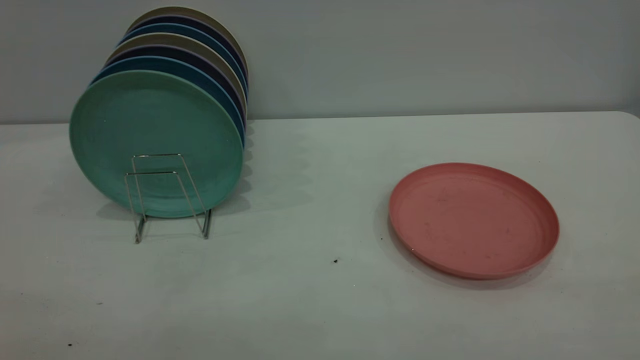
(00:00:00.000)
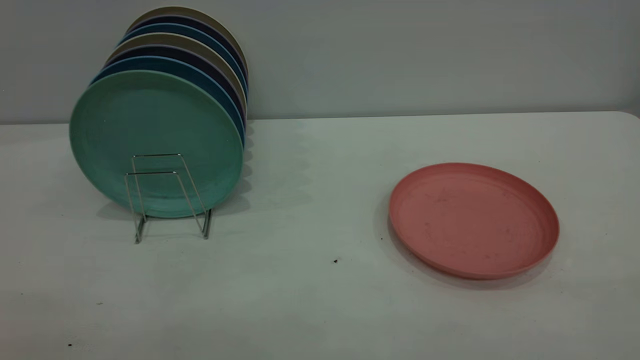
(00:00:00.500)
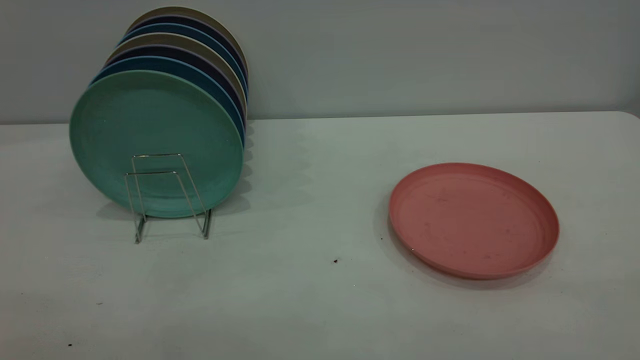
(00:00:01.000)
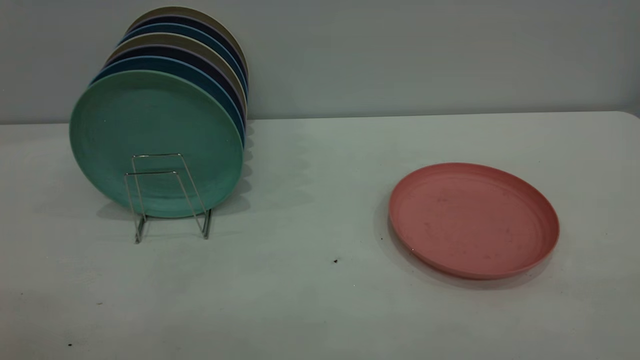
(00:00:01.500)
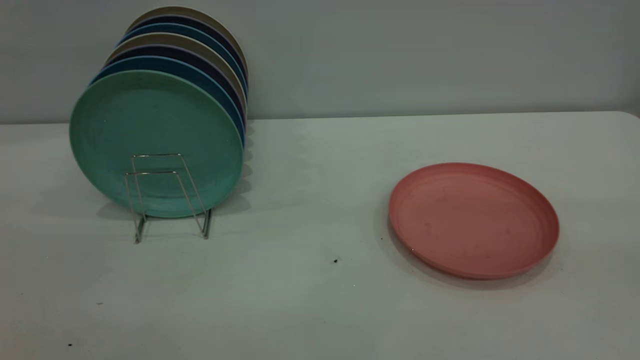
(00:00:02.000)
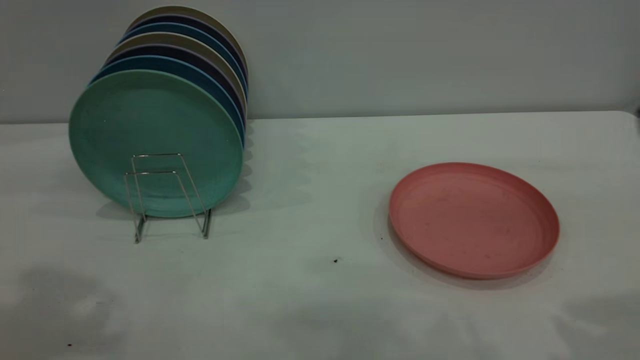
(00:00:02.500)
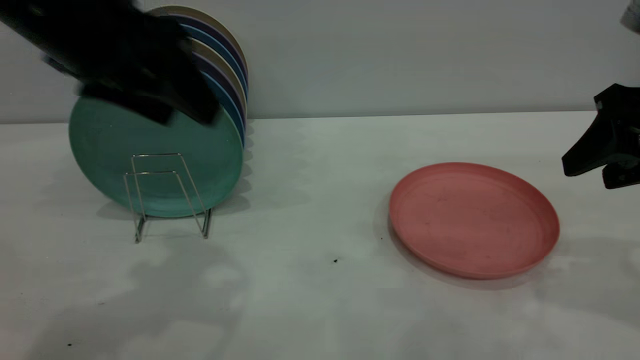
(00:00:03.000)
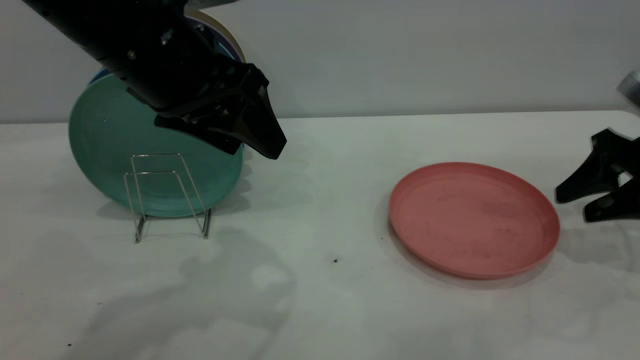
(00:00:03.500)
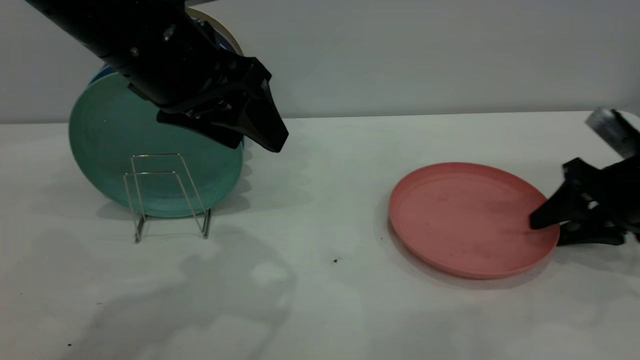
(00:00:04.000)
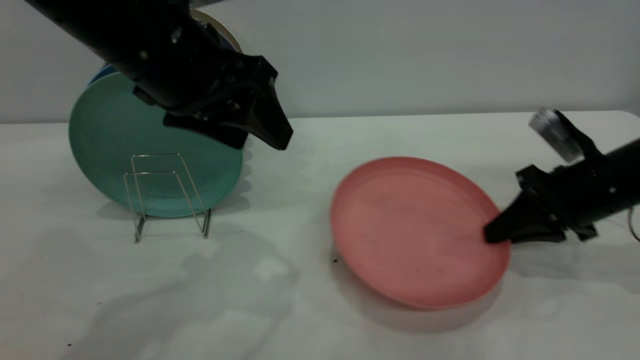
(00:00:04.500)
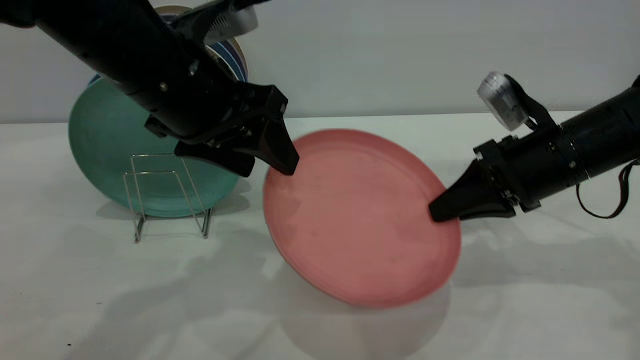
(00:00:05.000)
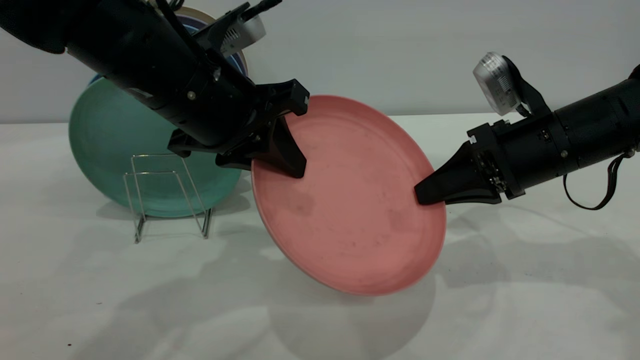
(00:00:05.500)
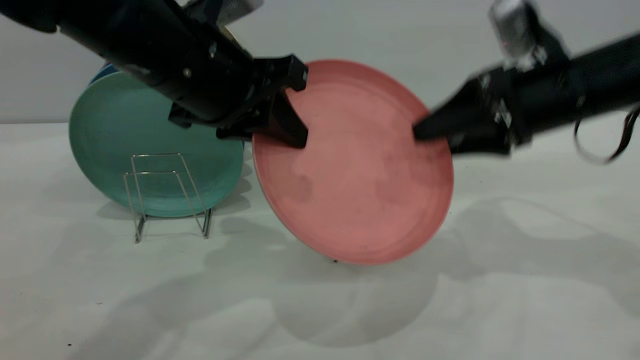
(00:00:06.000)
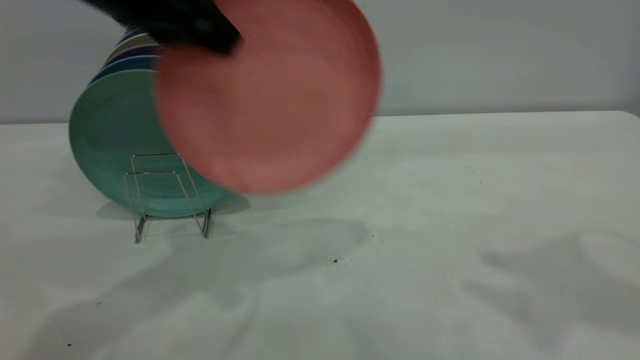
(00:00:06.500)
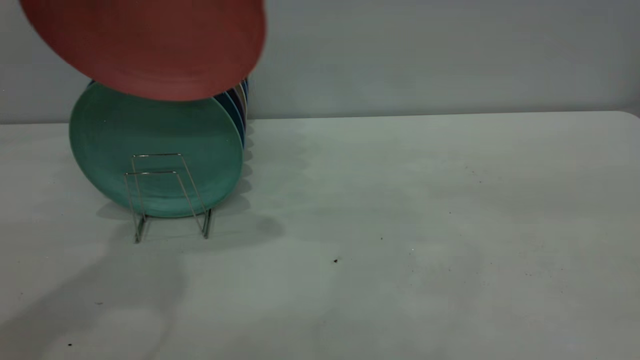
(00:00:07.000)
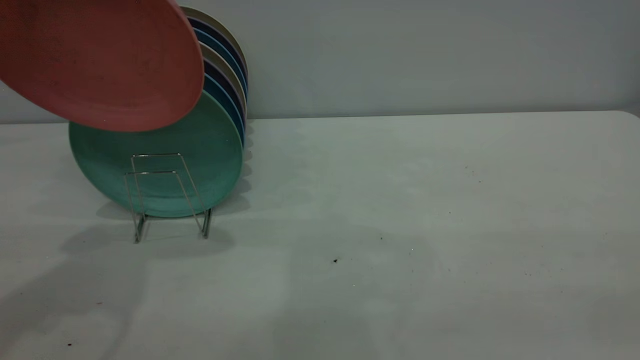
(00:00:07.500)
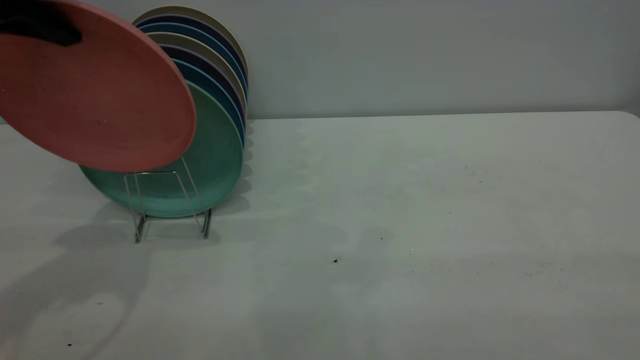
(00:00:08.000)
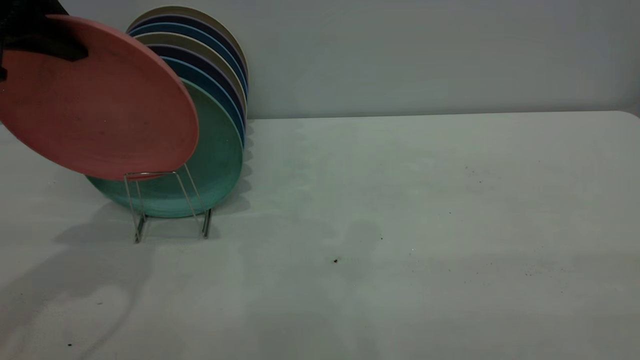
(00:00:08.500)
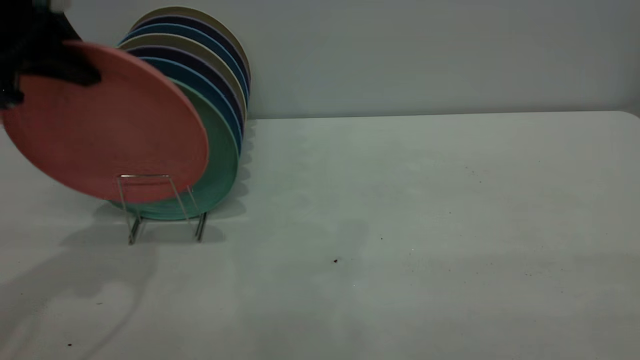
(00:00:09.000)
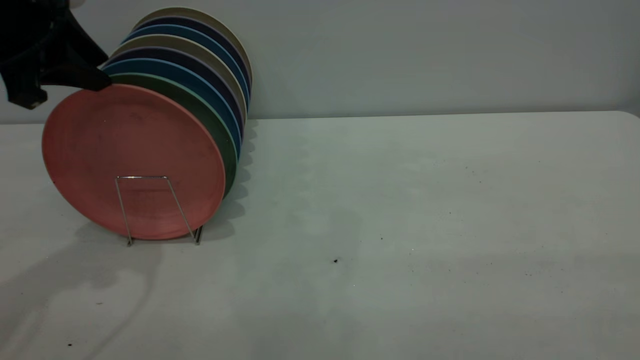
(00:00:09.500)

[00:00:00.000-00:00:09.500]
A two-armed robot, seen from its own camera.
Task of the whole recording: the right gripper grasp the pink plate, the right gripper pass the pink plate to the left gripper, and the left gripper place the pink plate on the plate rack.
Step, 00:00:00.000 to 00:00:04.500: Pick up the plate with the right gripper.
Step, 00:00:05.000 to 00:00:06.000: Pass the plate from the right gripper to the left gripper.
00:00:02.000 to 00:00:04.000: The right gripper moves downward and forward, about 40 cm, while the left gripper travels forward, to the right and downward by approximately 30 cm.
00:00:04.000 to 00:00:05.500: The left gripper closes up; the right gripper goes about 15 cm to the left and upward, and closes up.
00:00:05.500 to 00:00:07.500: The left gripper is displaced to the left and upward by roughly 20 cm; the right gripper travels backward and upward by approximately 40 cm, and opens.
00:00:07.500 to 00:00:09.500: The left gripper goes some 10 cm downward, and opens its fingers.

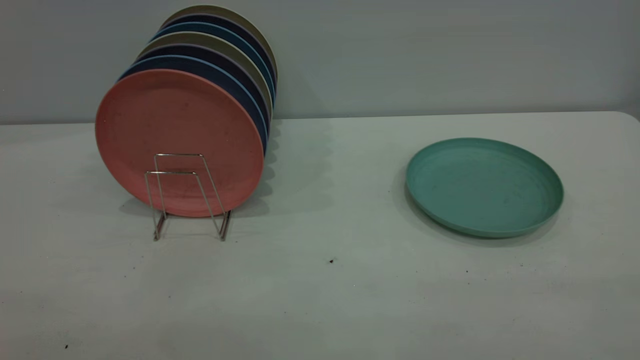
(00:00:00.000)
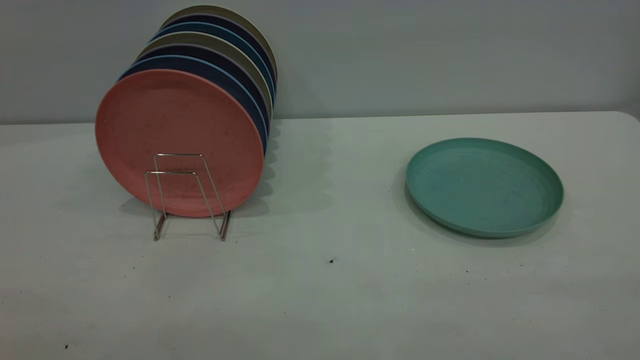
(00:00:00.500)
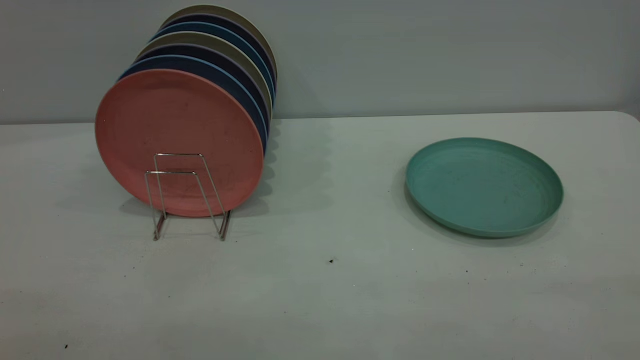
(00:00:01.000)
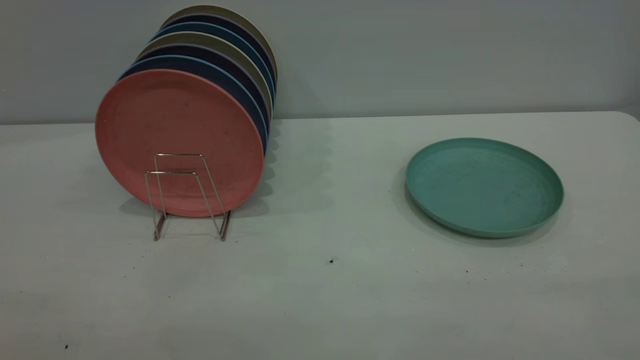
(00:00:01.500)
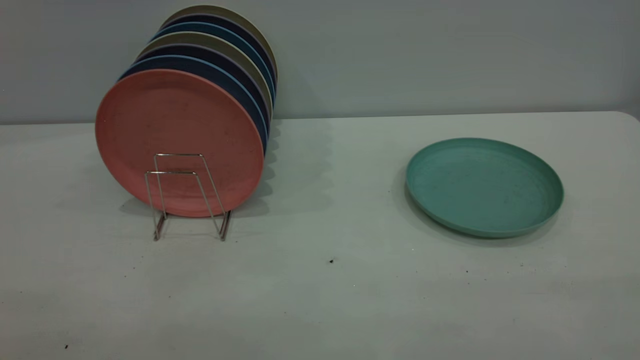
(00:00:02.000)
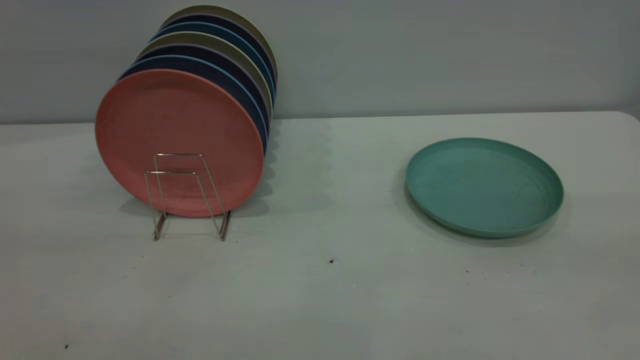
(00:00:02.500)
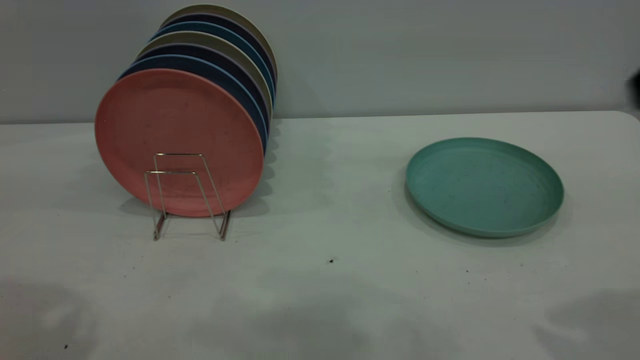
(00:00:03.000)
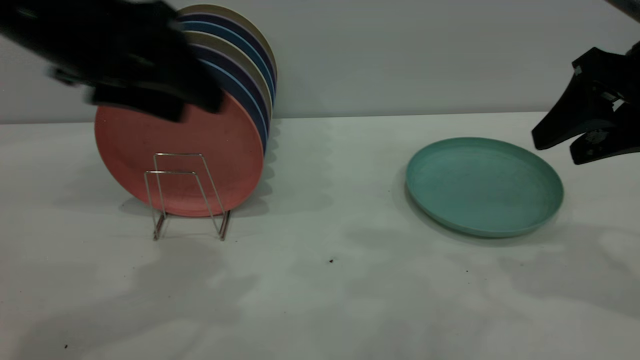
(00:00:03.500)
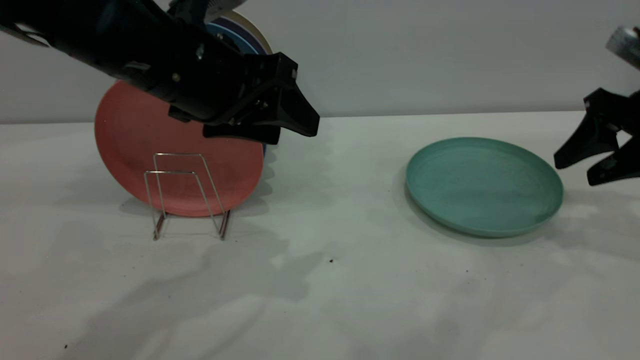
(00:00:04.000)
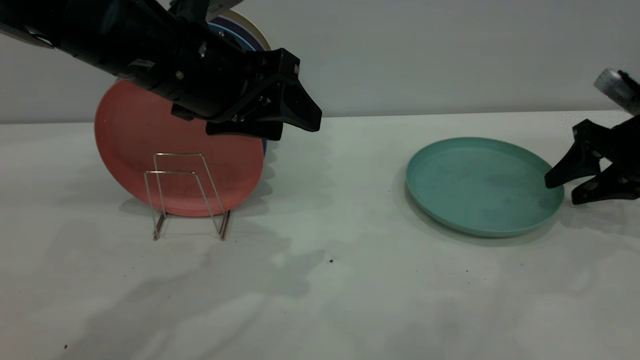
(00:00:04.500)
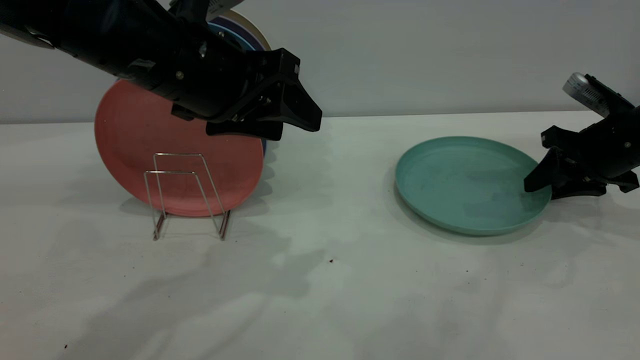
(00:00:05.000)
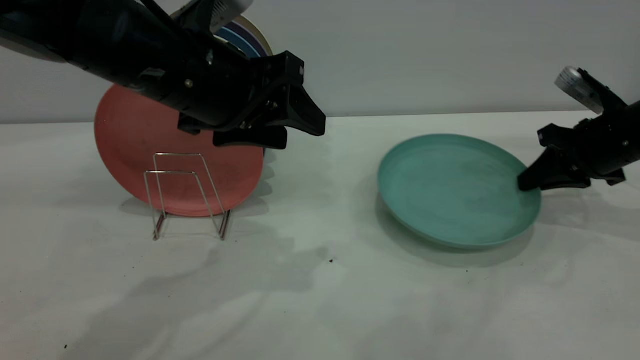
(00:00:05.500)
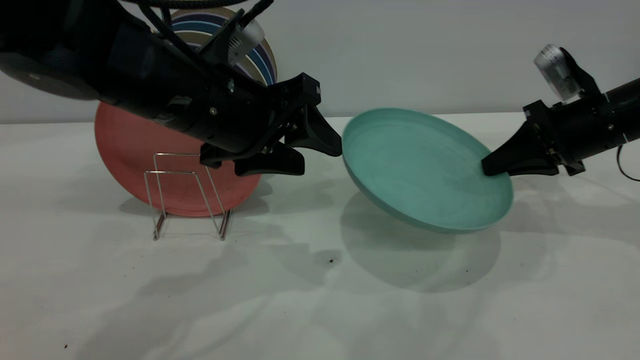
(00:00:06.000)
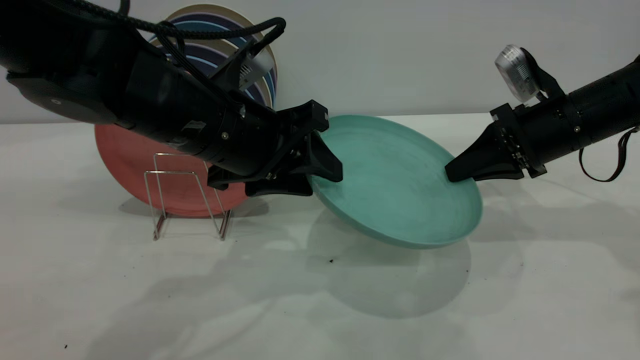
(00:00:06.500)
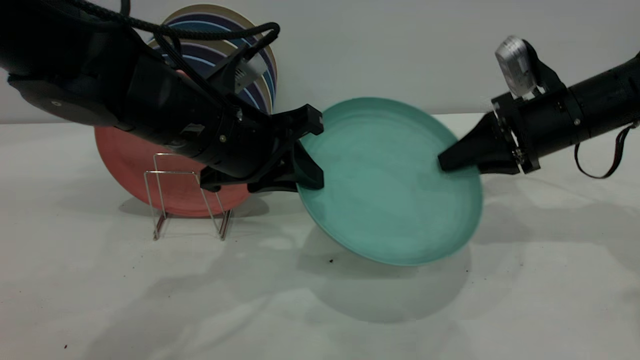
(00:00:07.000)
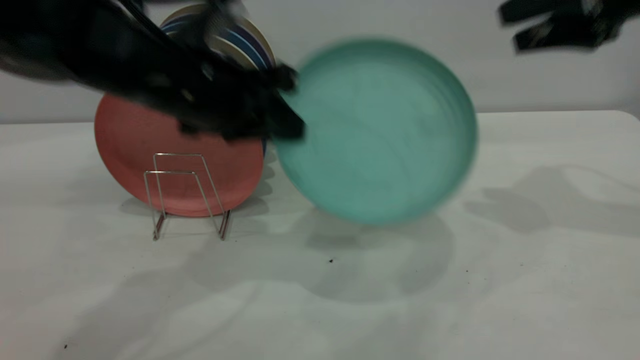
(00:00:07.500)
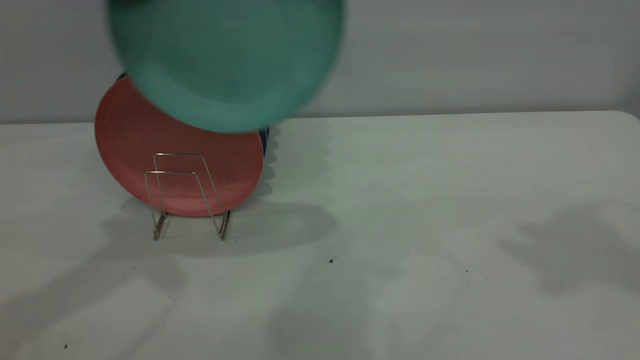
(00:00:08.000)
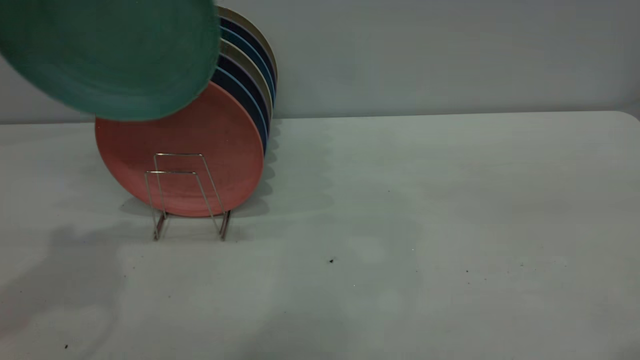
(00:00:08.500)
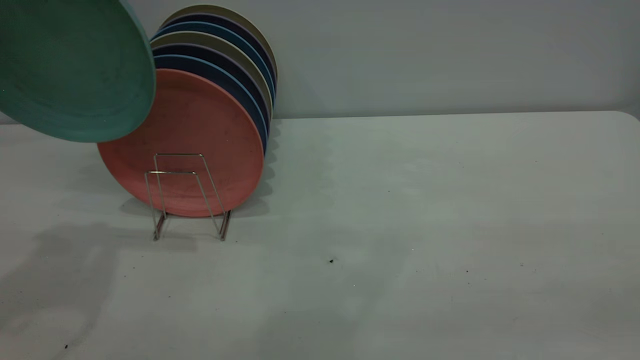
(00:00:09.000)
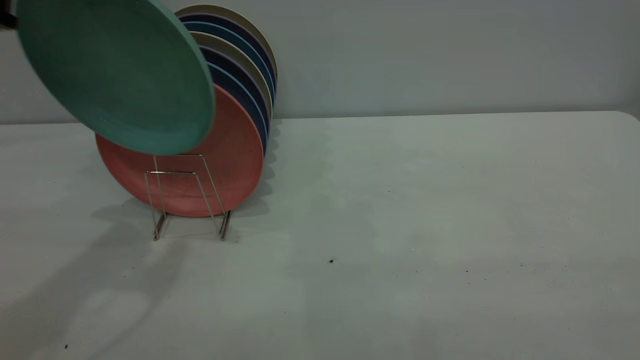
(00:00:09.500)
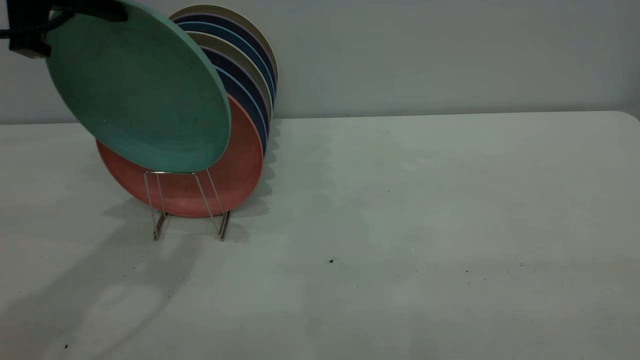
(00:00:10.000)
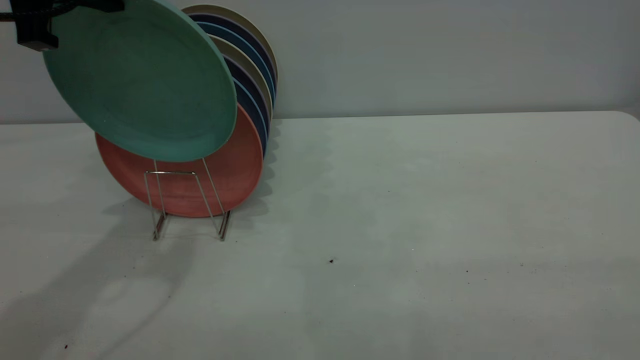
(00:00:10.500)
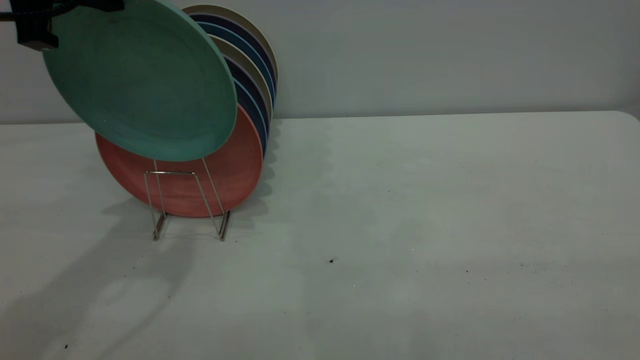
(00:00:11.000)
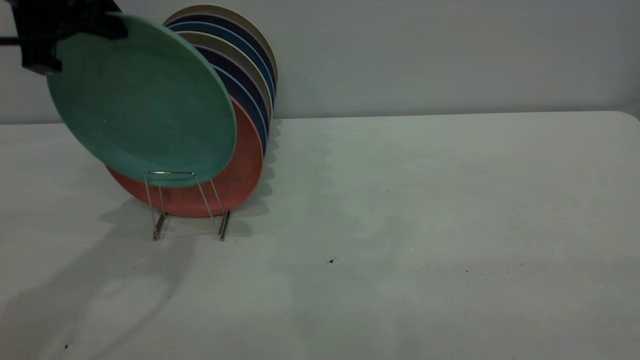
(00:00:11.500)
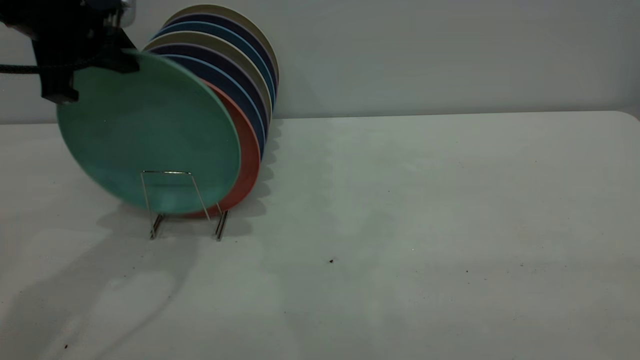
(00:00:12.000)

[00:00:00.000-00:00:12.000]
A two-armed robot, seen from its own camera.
Task of the whole recording: the right gripper grasp the green plate, the right gripper pass the green plate to the left gripper, and the left gripper place the green plate on the plate rack.
Step, 00:00:00.000 to 00:00:05.500: Pick up the plate with the right gripper.
Step, 00:00:06.000 to 00:00:07.000: Pass the plate from the right gripper to the left gripper.
00:00:00.000 to 00:00:02.000: The two grippers keep their place.
00:00:02.000 to 00:00:04.000: The right gripper moves forward and downward, roughly 40 cm. The left gripper travels forward and to the right by approximately 40 cm.
00:00:04.000 to 00:00:06.000: The right gripper heads to the left, covering roughly 5 cm, and closes.
00:00:06.000 to 00:00:08.000: The right gripper moves upward, roughly 35 cm, and opens its fingers. The left gripper travels upward and to the left by about 20 cm, and closes its fingers.
00:00:08.000 to 00:00:10.000: The right gripper goes some 30 cm backward.
00:00:10.000 to 00:00:12.000: The grippers make only small movements.
